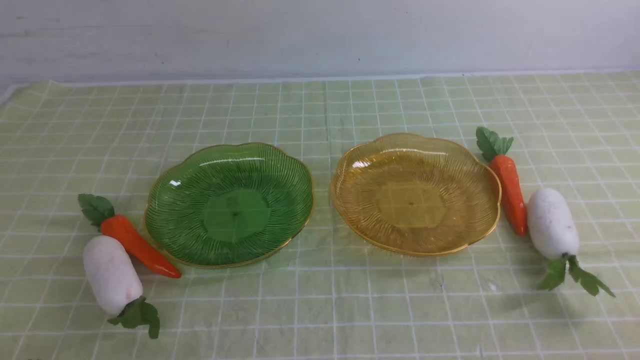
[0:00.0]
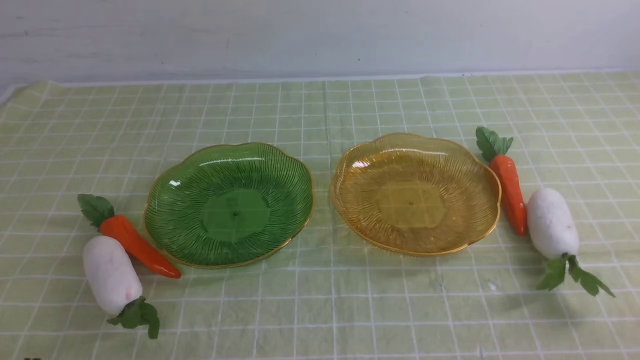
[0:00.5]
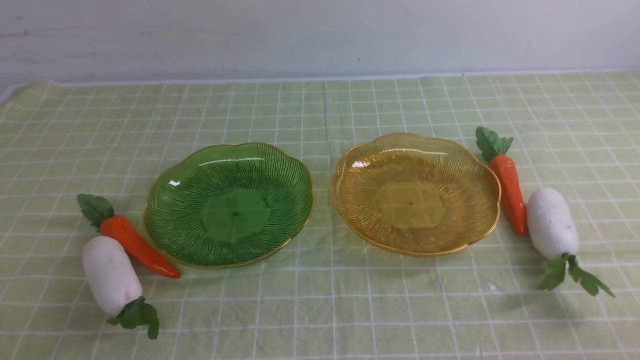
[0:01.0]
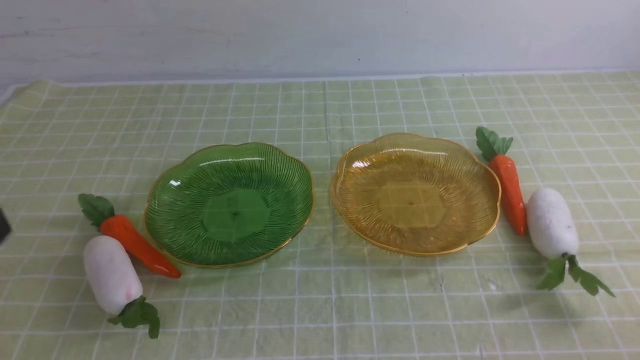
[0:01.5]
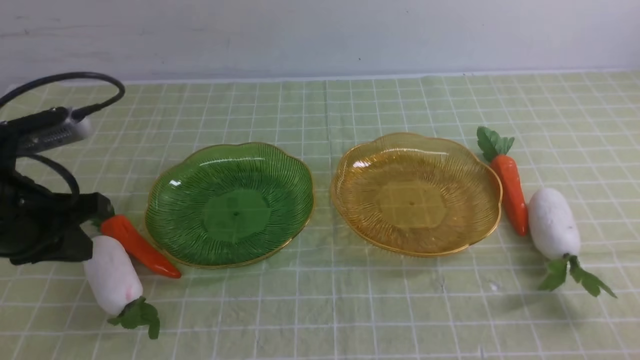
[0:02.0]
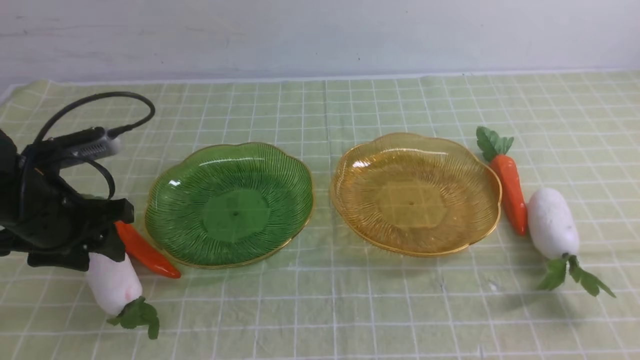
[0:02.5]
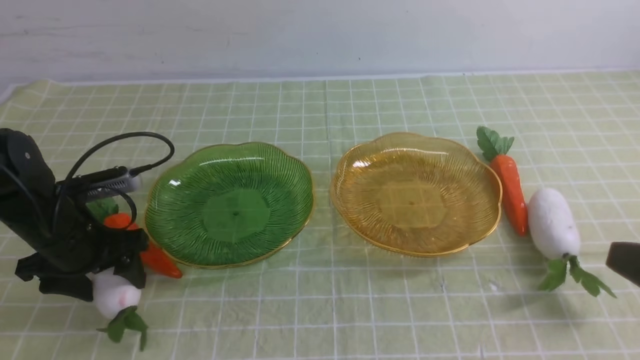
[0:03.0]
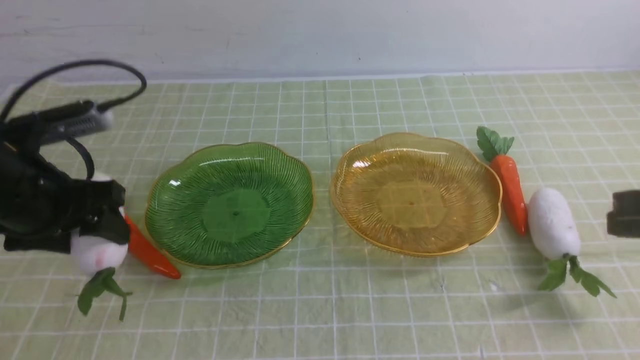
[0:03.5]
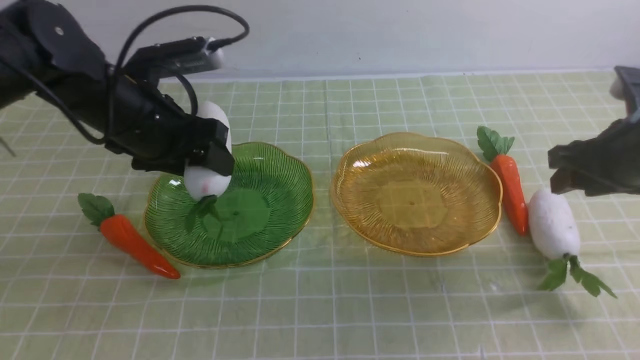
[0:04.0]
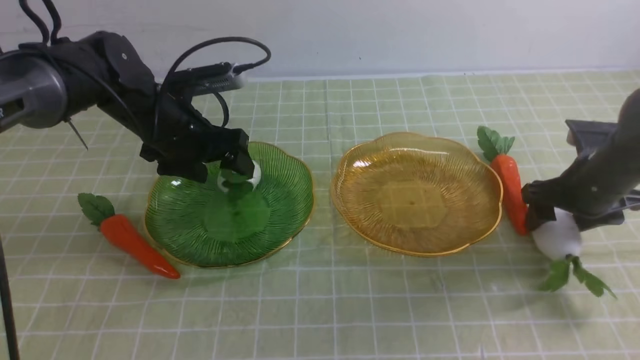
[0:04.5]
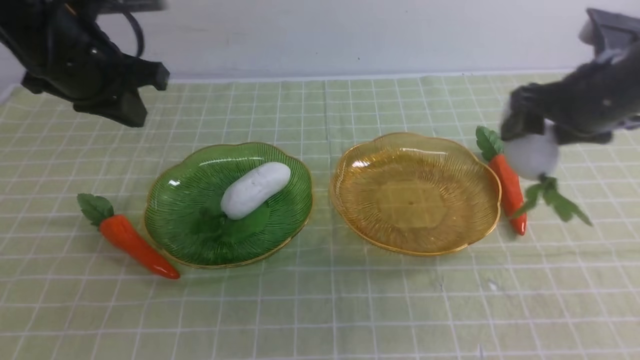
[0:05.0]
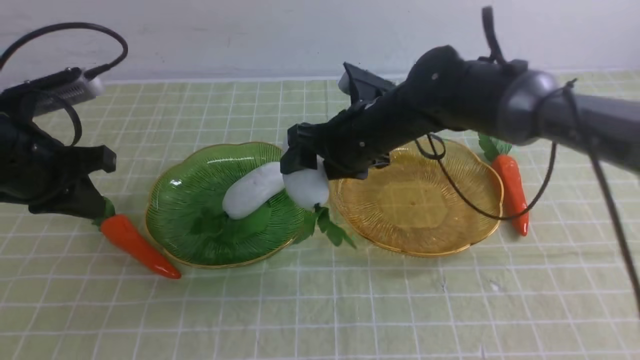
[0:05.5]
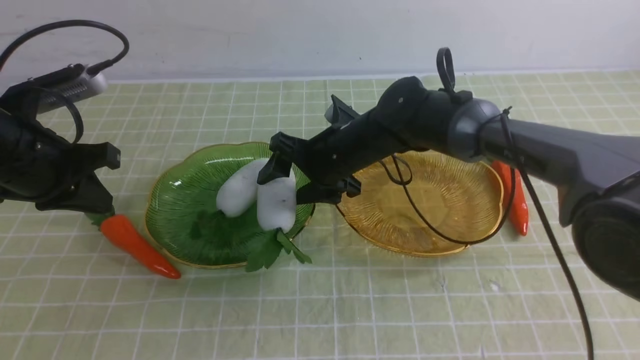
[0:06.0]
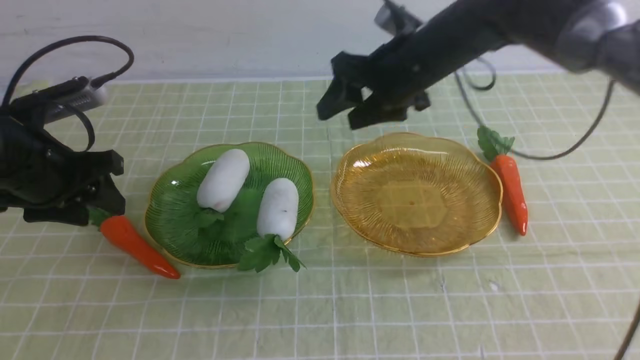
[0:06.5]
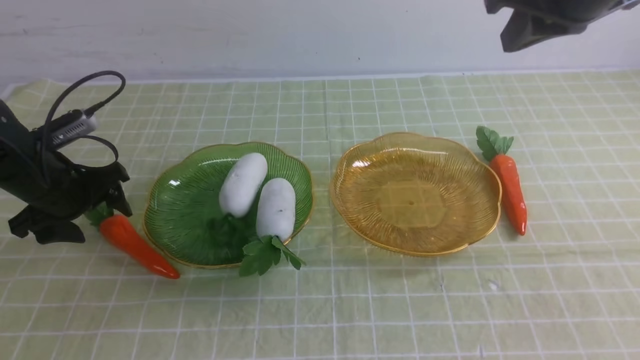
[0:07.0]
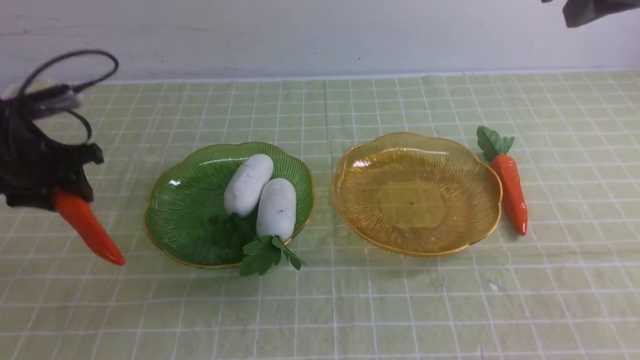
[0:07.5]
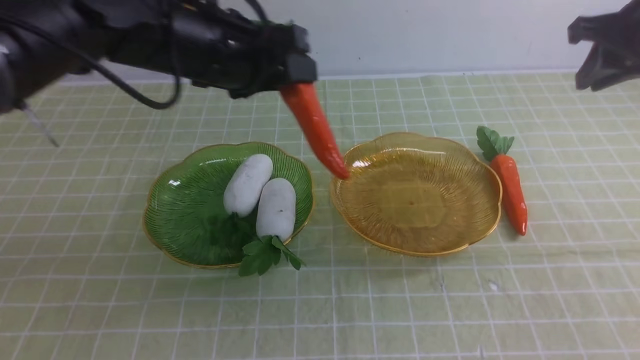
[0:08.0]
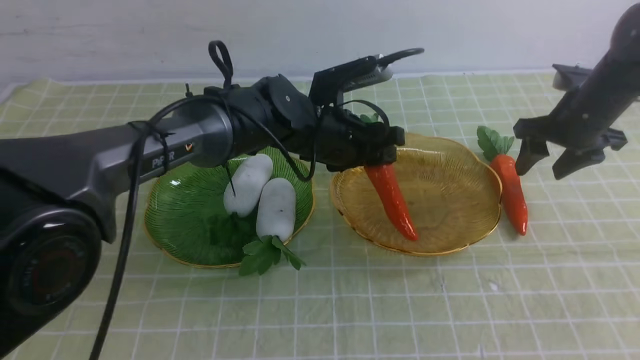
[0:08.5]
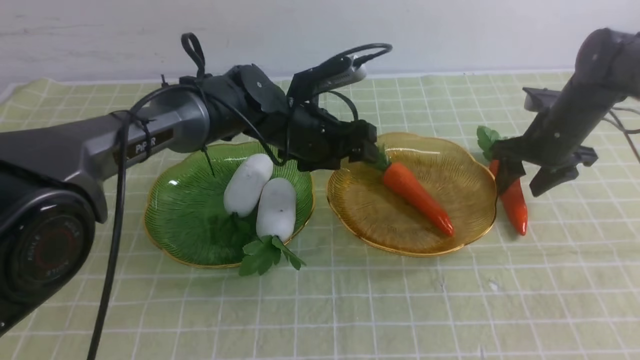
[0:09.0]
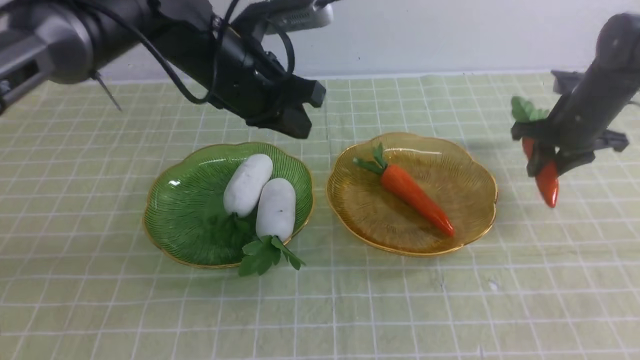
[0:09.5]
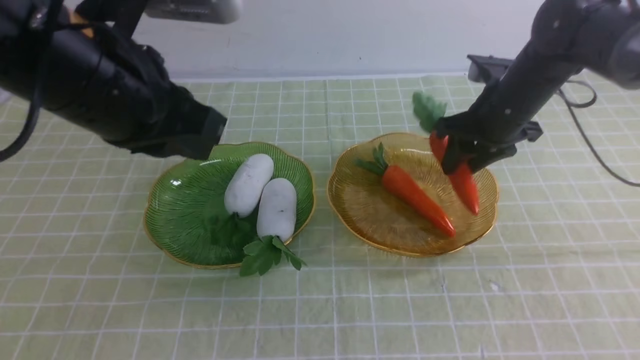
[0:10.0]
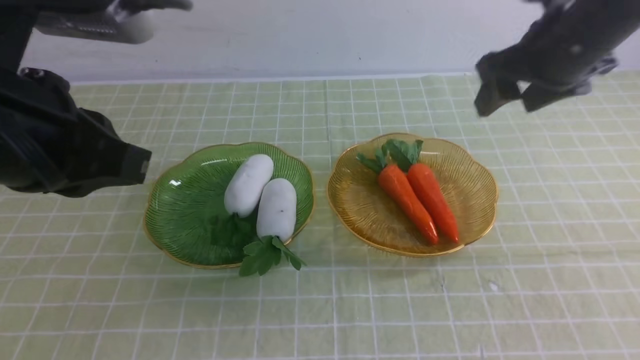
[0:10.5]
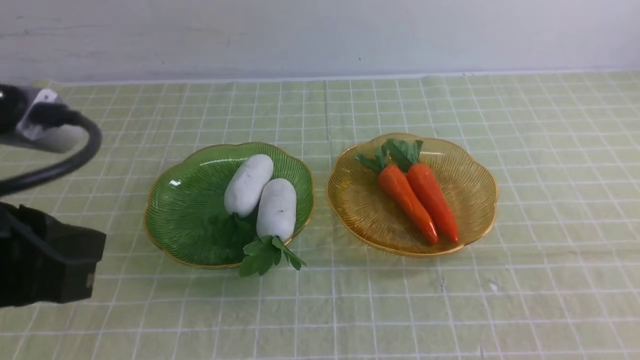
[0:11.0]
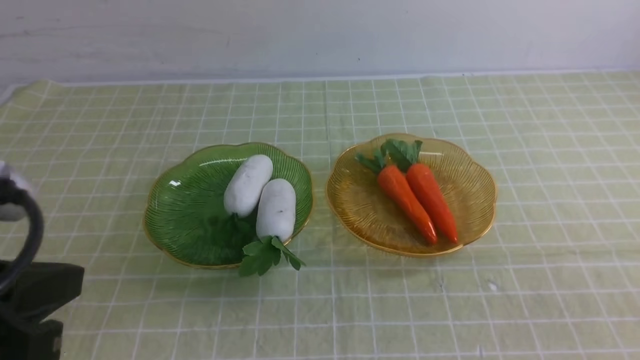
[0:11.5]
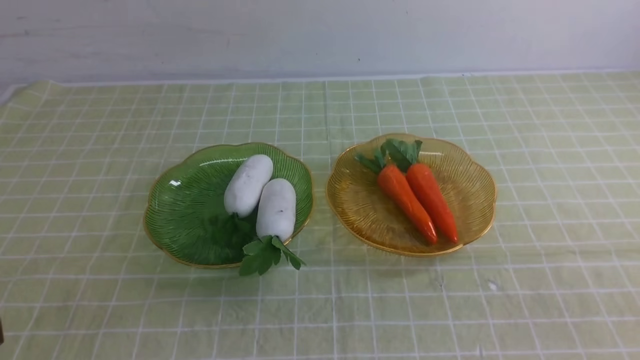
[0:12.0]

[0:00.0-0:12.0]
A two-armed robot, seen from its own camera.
Step, 0:00.0 to 0:04.5: use the left arm to grab a radish and put it into the left plate.
Step, 0:05.0 to 0:06.0: use the right arm to grab a radish and put it into the left plate.
Step, 0:07.0 to 0:09.0: use the left arm to grab a carrot and put it into the right plate.
Step, 0:09.5 to 0:11.5: use the right arm to grab a carrot and put it into the right plate.
0:00.0 to 0:02.0: The left gripper shifts about 20 cm forward and upward.
0:02.0 to 0:04.0: The right gripper moves forward, roughly 30 cm, and opens up, while the left gripper is displaced forward and to the right by some 15 cm, and opens up.
0:04.0 to 0:06.0: The left gripper is displaced to the left and backward by roughly 10 cm, and closes, while the right gripper is displaced to the left by roughly 30 cm.
0:06.0 to 0:08.0: The left gripper shifts some 20 cm to the right and forward, and opens. Meanwhile the right gripper heads to the right and upward, covering roughly 35 cm, and closes its fingers.
0:08.0 to 0:10.0: The left gripper is displaced backward and upward by roughly 15 cm, and closes its fingers, while the right gripper is displaced to the left and downward by roughly 15 cm.
0:10.0 to 0:12.0: The left gripper travels backward by approximately 25 cm. Meanwhile the right gripper goes approximately 40 cm backward, and closes up.

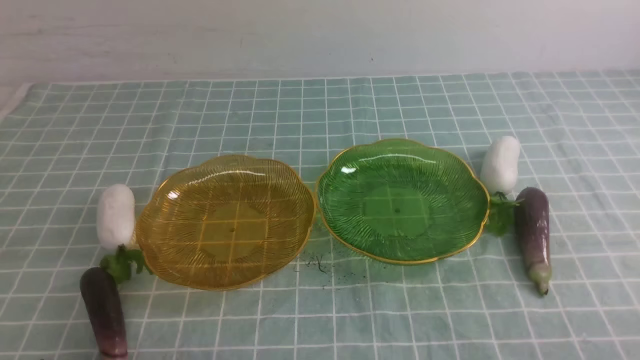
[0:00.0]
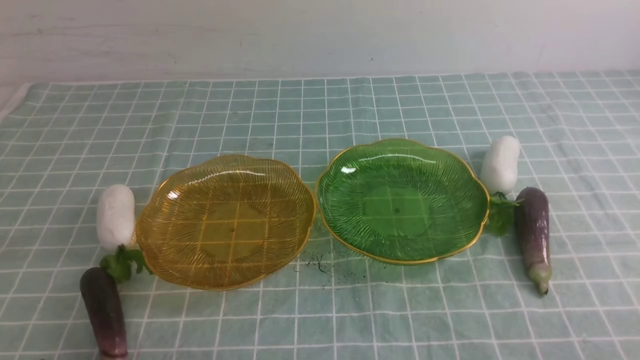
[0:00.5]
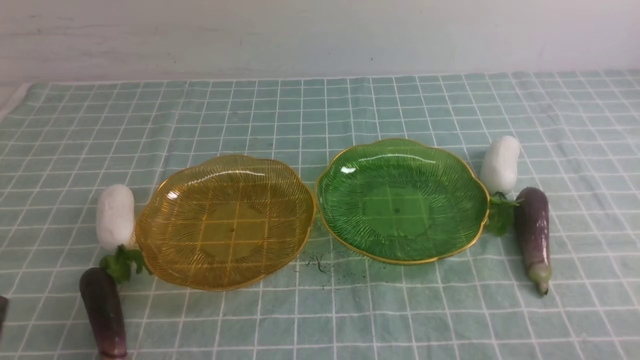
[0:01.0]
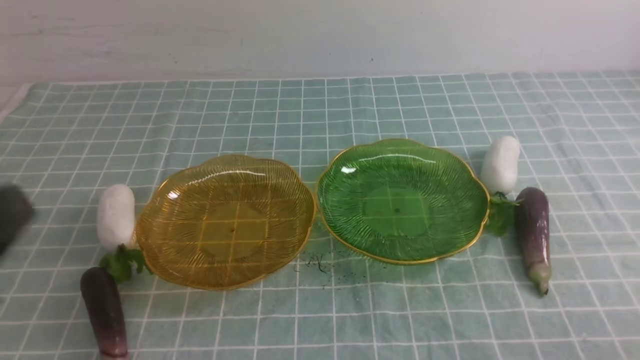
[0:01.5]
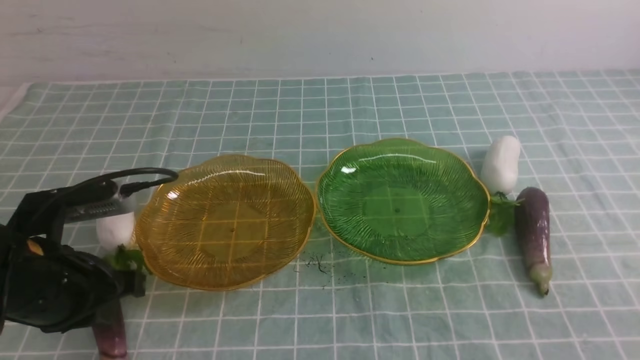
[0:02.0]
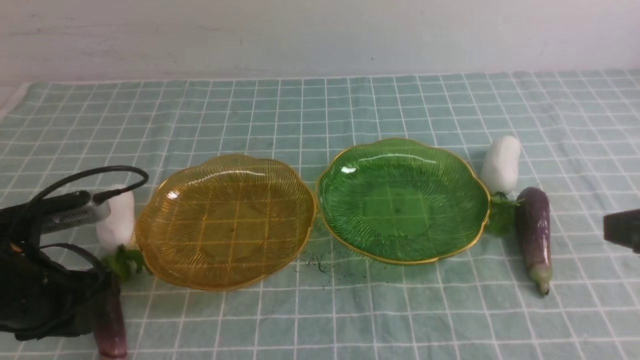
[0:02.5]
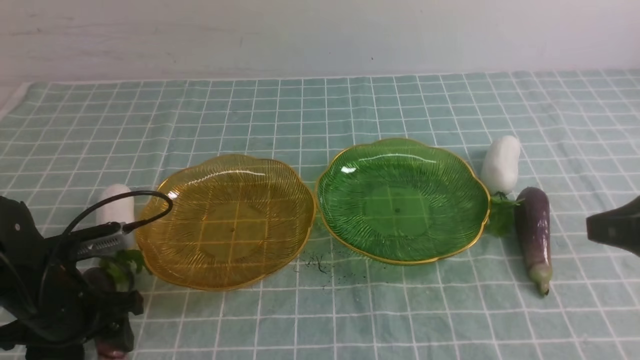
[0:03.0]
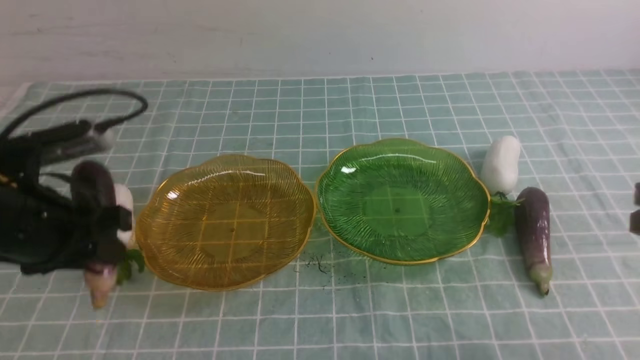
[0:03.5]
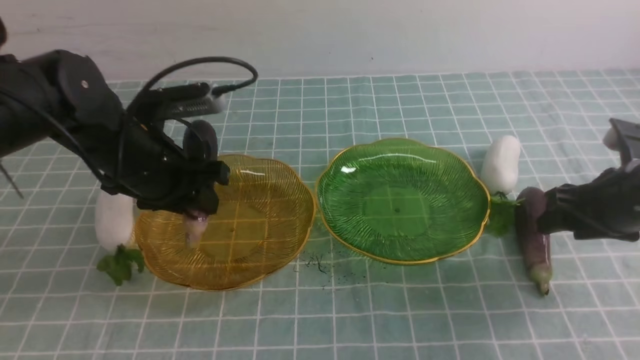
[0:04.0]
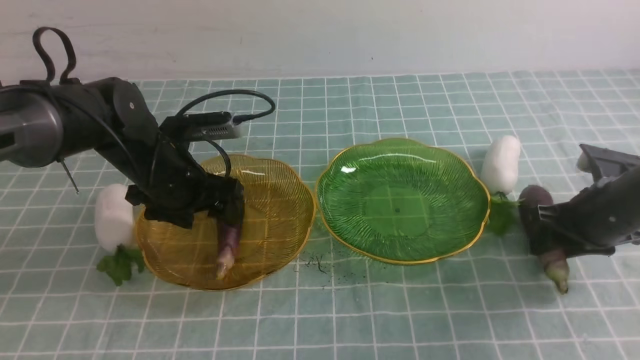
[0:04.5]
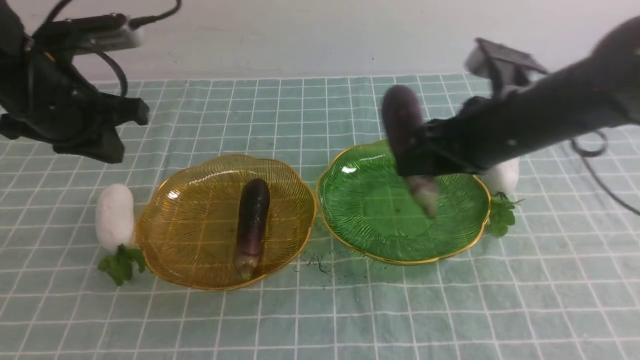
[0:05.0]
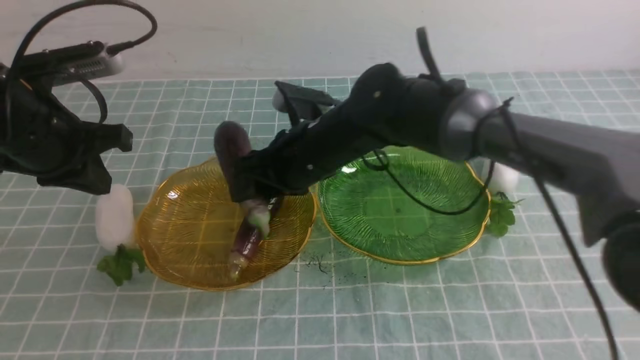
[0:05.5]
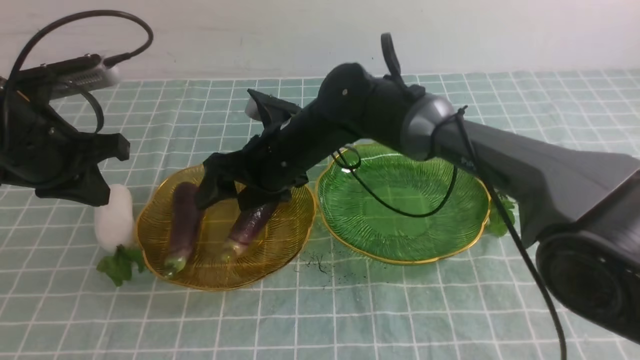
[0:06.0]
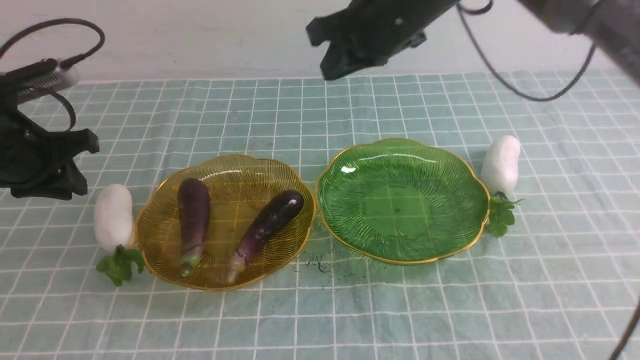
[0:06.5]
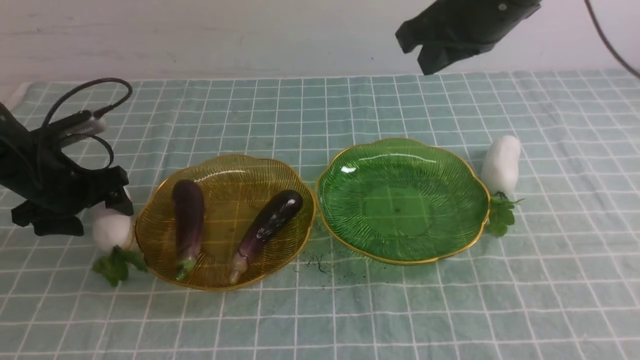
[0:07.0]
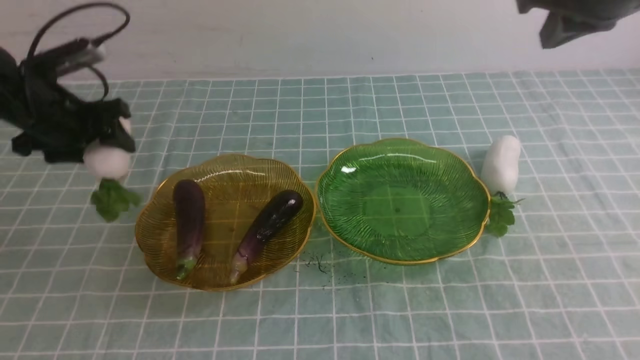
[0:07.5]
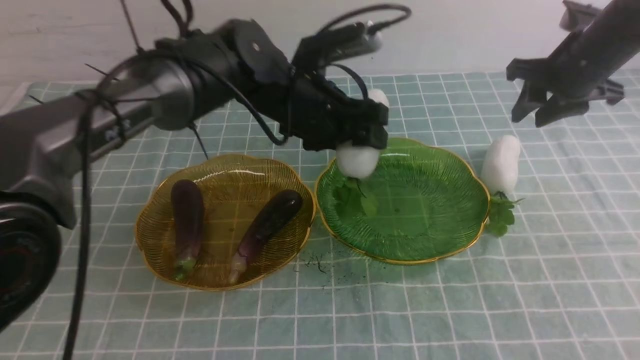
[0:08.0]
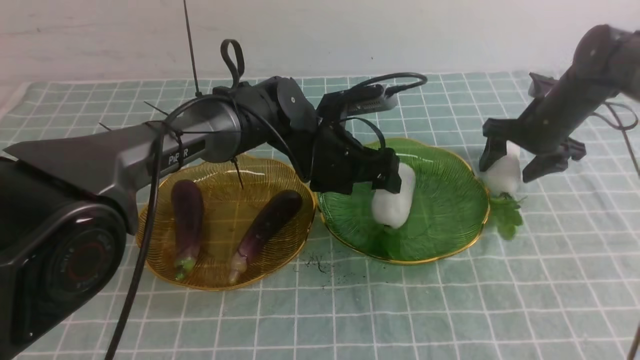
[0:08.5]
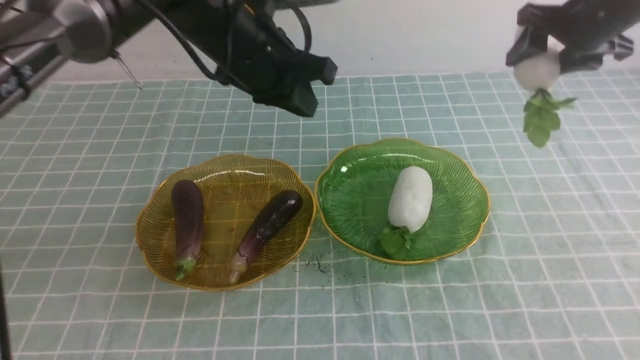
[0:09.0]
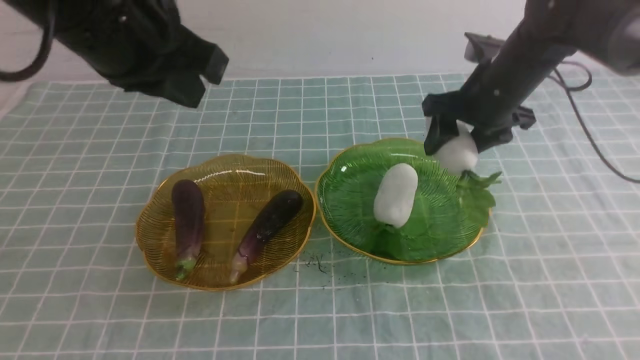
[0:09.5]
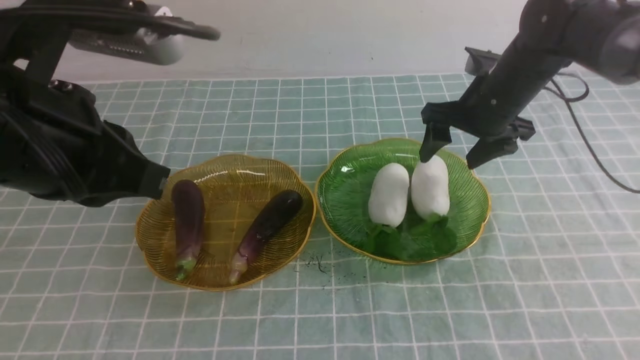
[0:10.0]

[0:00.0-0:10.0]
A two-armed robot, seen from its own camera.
Step, 0:00.0 to 0:04.0: use the left arm to grab an eggplant and put it into the left plate.
Step, 0:04.5 to 0:05.5: use the right arm to grab an eggplant and put it into the left plate.
Step, 0:06.0 to 0:08.0: use the left arm to grab a radish and put it into the right plate.
Step, 0:08.5 to 0:09.5: use the right arm to grab a radish and put it into the right plate.
0:00.0 to 0:02.0: The left gripper travels forward and upward by approximately 15 cm.
0:02.0 to 0:04.0: The right gripper goes approximately 25 cm forward, and opens its fingers. The left gripper heads forward and to the right, covering about 15 cm, and opens up.
0:04.0 to 0:06.0: The left gripper is displaced to the left by about 10 cm, and closes up; the right gripper goes some 35 cm to the left.
0:06.0 to 0:08.0: The left gripper travels to the right and forward by about 25 cm, and opens up. The right gripper goes about 30 cm to the right, and closes, then reopens.
0:08.0 to 0:10.0: The left gripper is displaced backward, upward and to the left by approximately 30 cm, and closes its fingers. The right gripper swings up and down, about 15 cm each way, with 2 reversals, and opens up.
